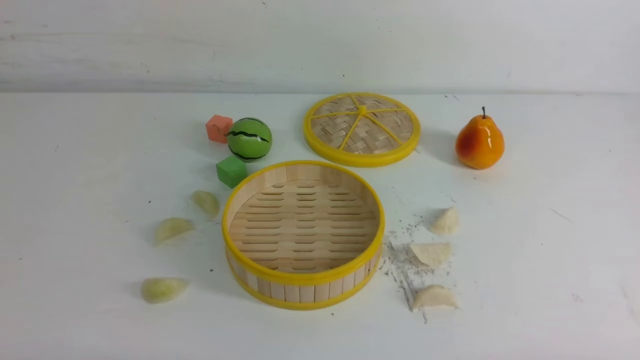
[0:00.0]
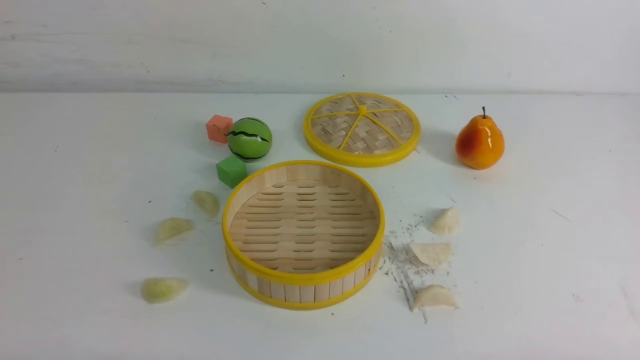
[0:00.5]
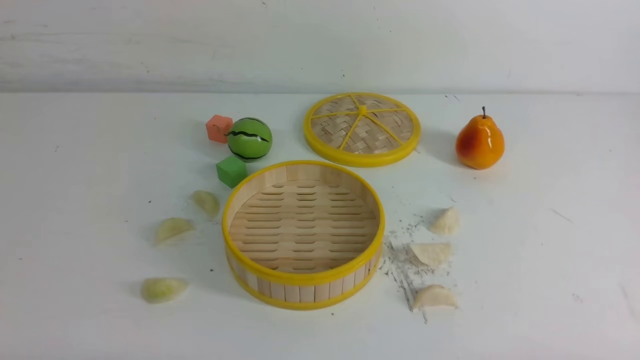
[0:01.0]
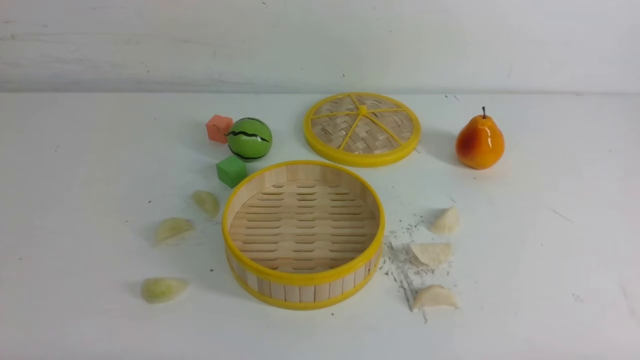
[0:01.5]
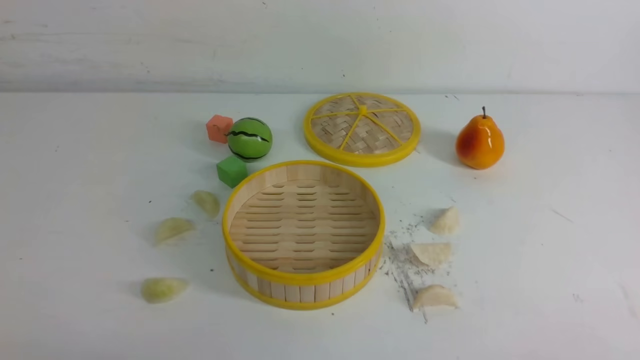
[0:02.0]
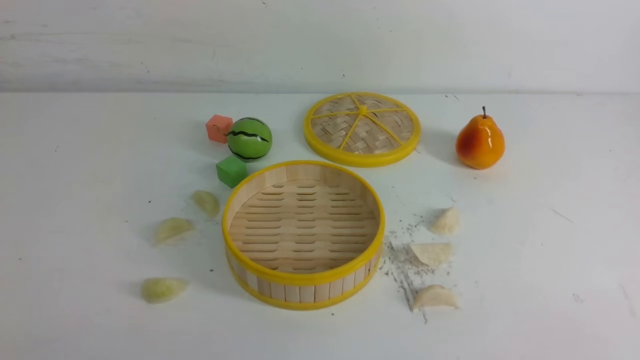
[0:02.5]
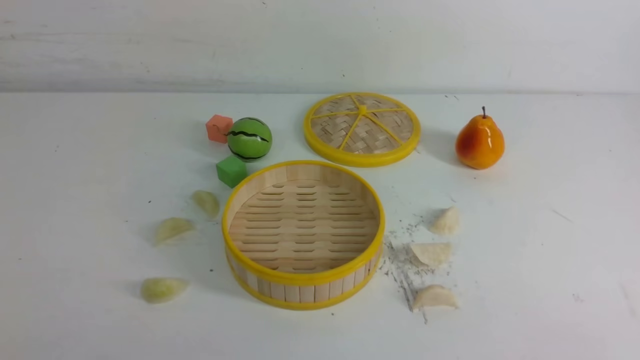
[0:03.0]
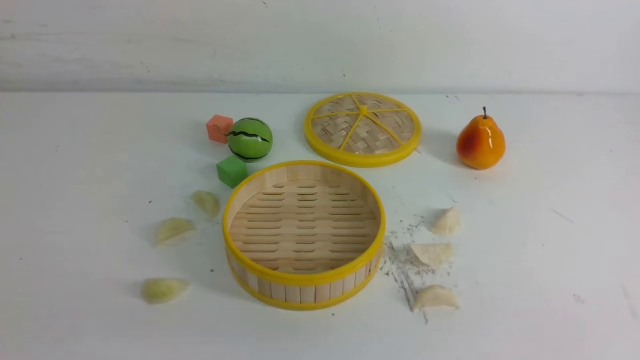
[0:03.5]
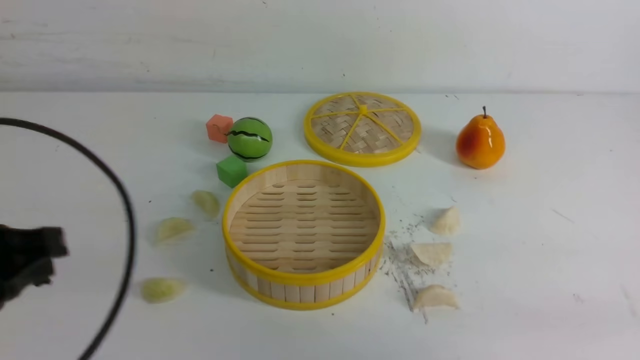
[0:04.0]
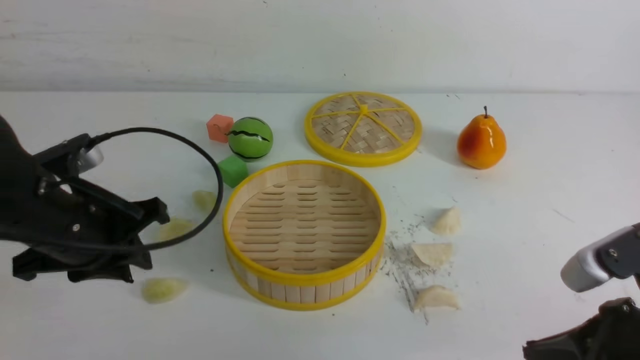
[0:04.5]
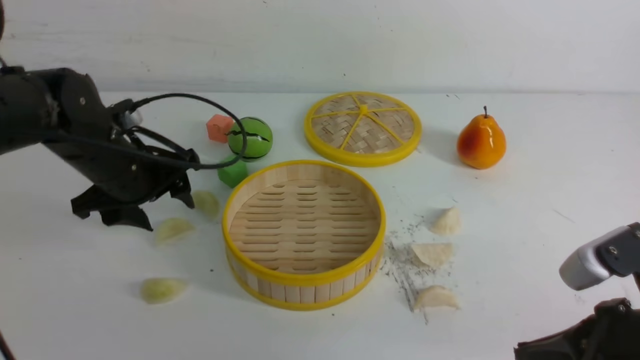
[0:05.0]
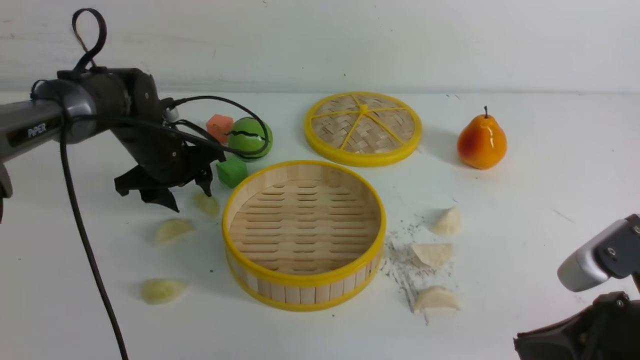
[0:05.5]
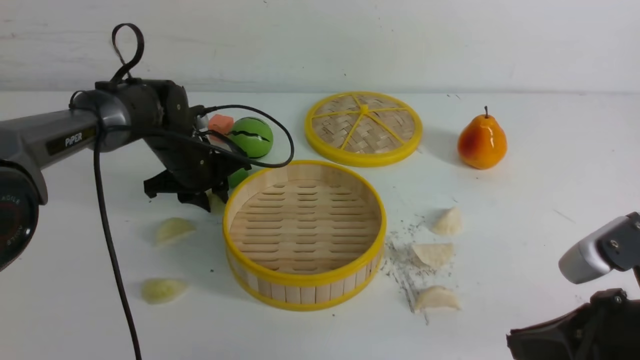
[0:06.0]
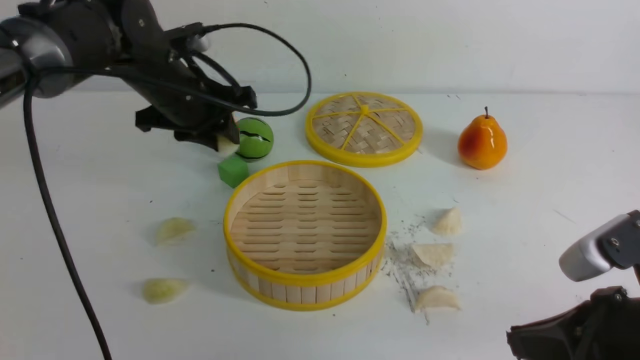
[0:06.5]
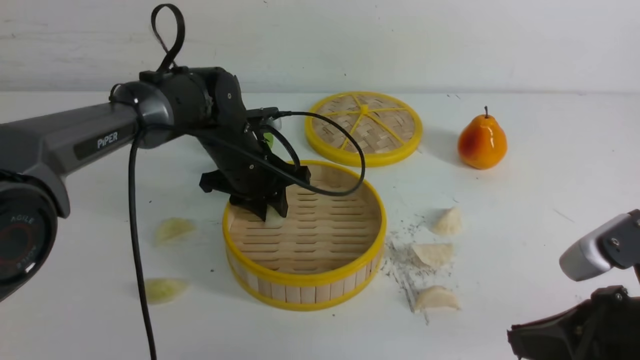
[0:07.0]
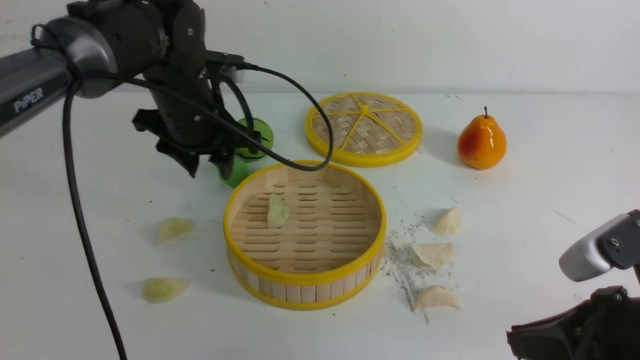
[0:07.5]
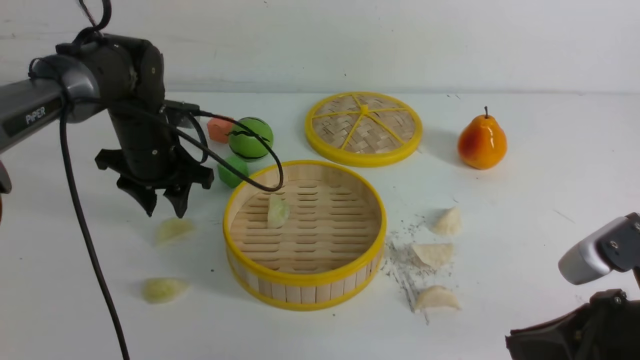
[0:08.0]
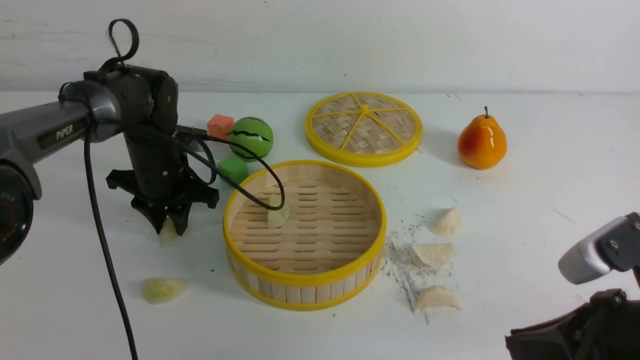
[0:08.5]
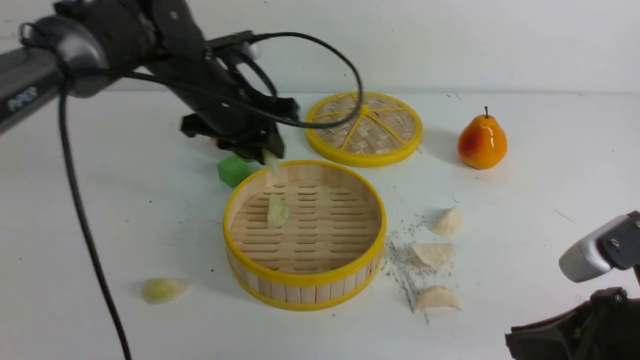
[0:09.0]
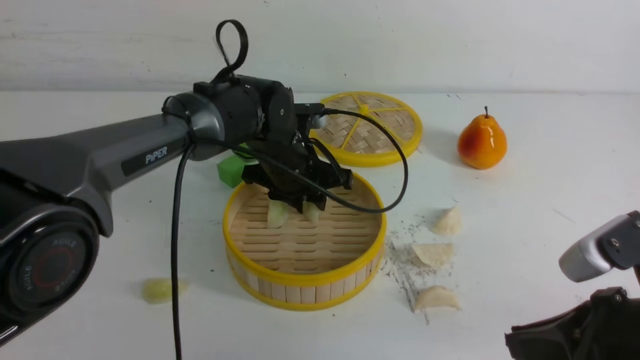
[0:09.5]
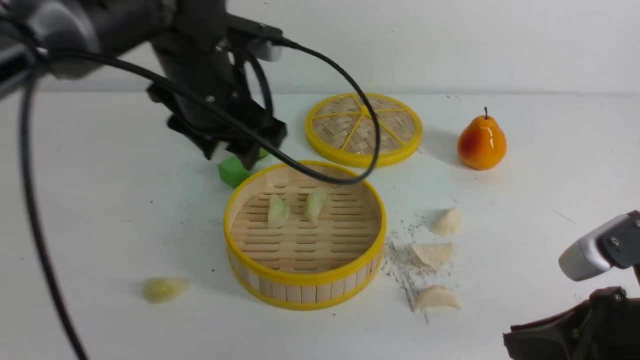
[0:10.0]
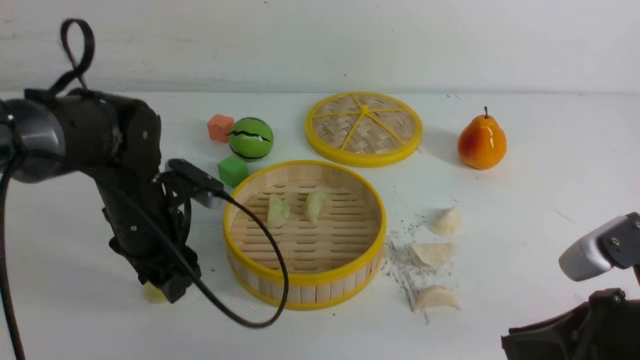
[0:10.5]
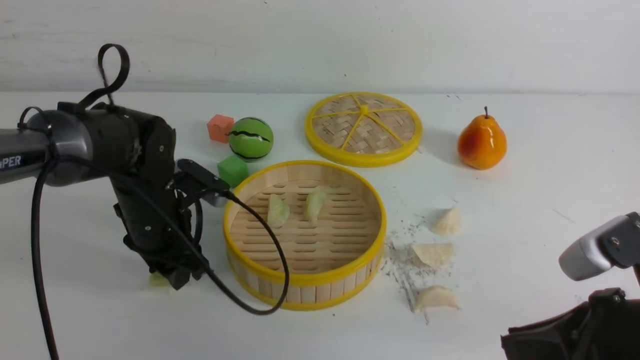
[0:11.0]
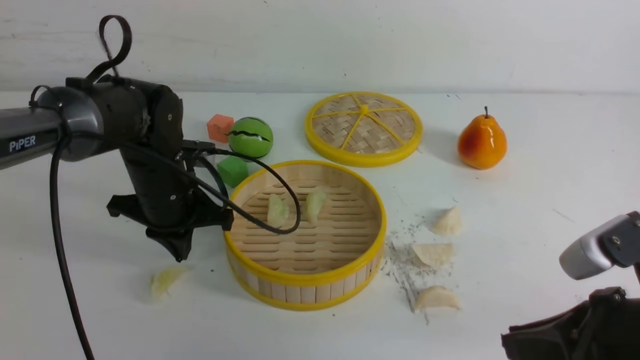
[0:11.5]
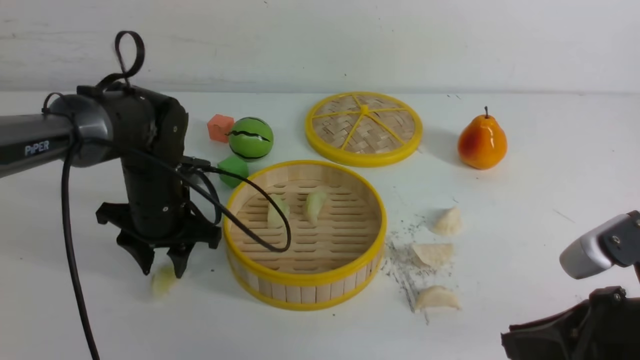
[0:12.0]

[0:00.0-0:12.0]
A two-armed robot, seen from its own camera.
Task of the whole recording: put the dumplings into the steamer on the white table.
Step, 0:00.0 to 0:06.0: use the left arm to grab a dumpling.
Step, 0:06.5 to 0:07.0: use the left arm to put the dumpling into the steamer.
Step, 0:07.5 to 0:08.5: use the left arm to grab a dumpling.
Step, 0:09.0 to 0:09.5: use the left arm to put the dumpling into the steamer.
0:02.0 to 0:04.0: The left gripper moves forward and upward, approximately 15 cm, and closes up.
0:04.0 to 0:06.0: The left gripper goes some 35 cm forward and downward, and opens its fingers, while the right gripper shifts roughly 5 cm to the left.
0:06.0 to 0:08.0: The left gripper reaches approximately 10 cm to the right, then returns.
0:08.0 to 0:10.0: The left gripper is displaced upward, to the right and backward by some 15 cm.
0:10.0 to 0:12.0: The left gripper travels downward and to the left by approximately 15 cm, and closes, then opens again.

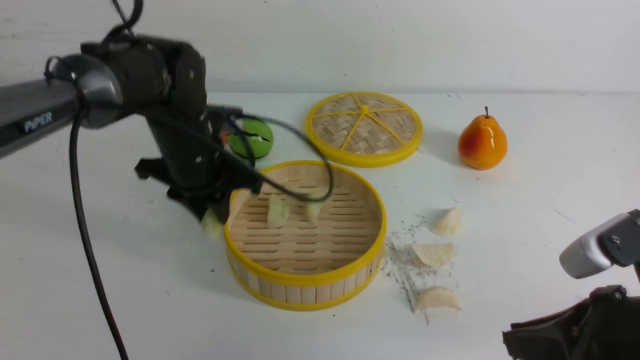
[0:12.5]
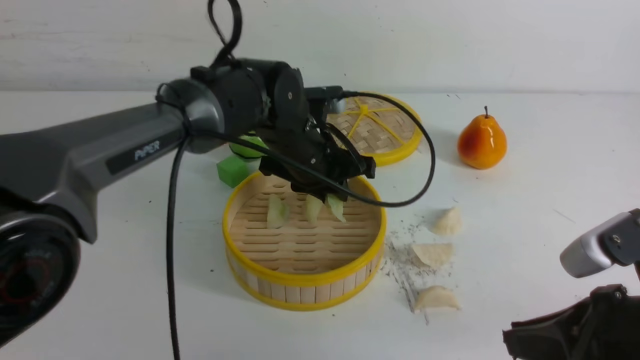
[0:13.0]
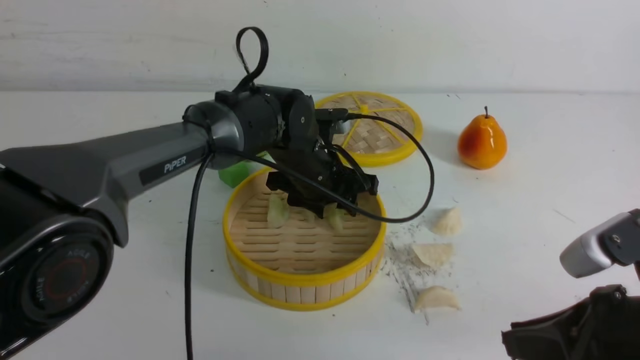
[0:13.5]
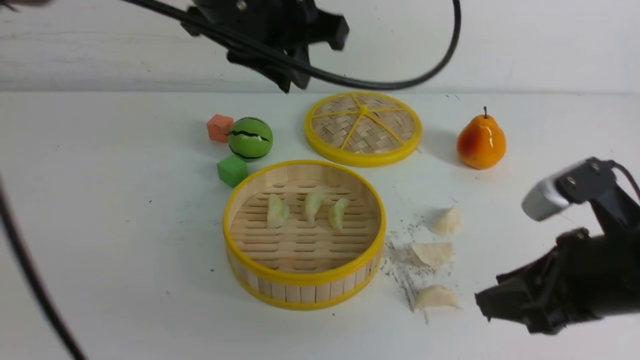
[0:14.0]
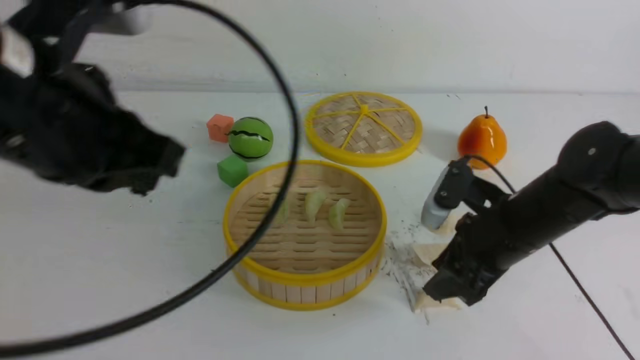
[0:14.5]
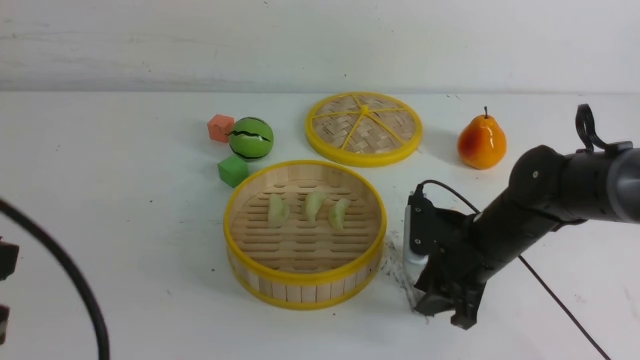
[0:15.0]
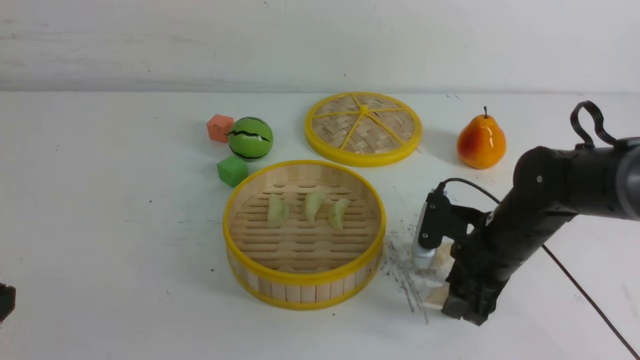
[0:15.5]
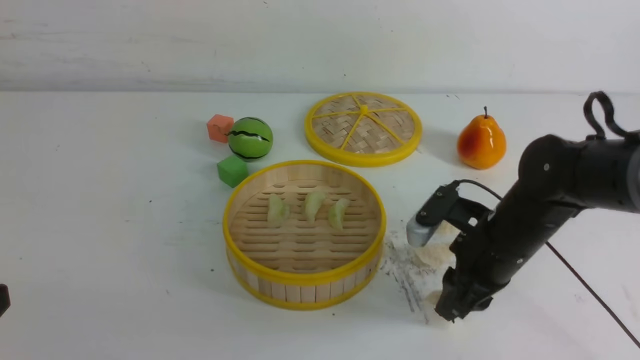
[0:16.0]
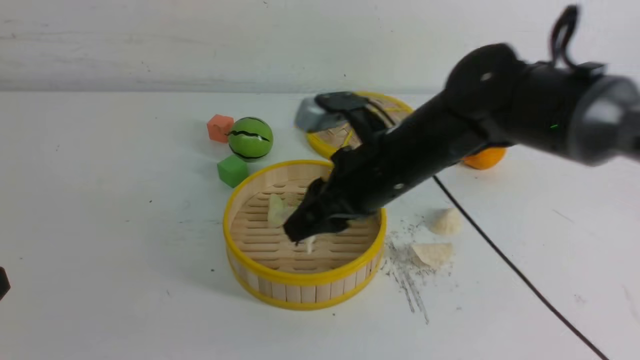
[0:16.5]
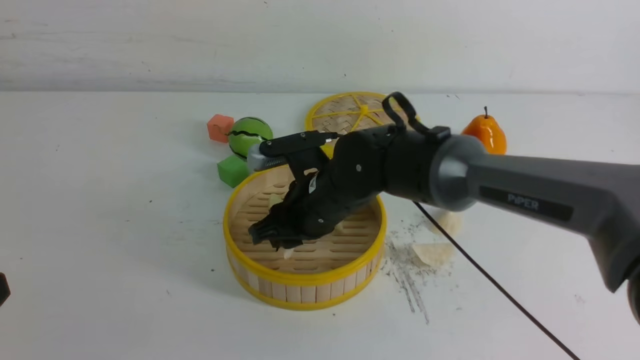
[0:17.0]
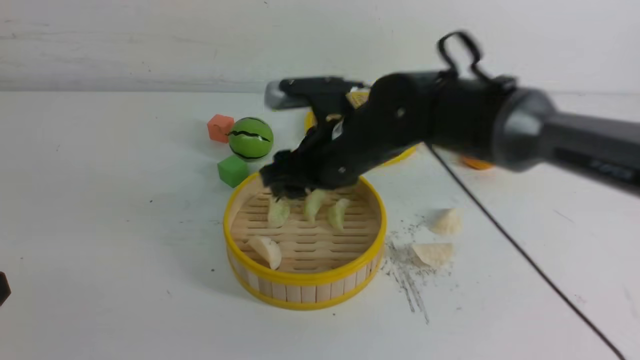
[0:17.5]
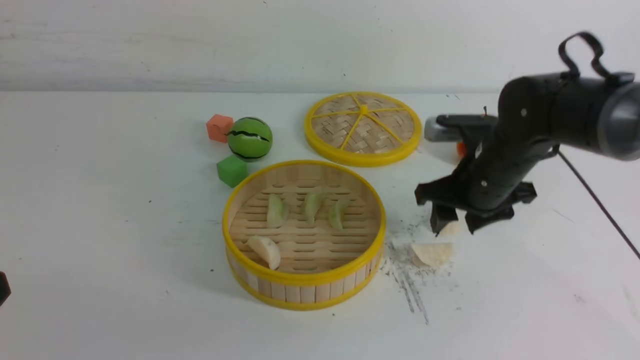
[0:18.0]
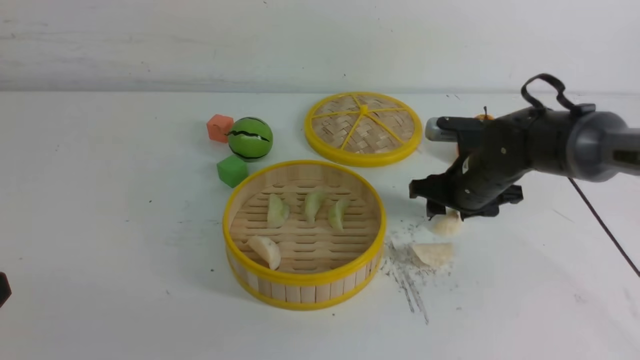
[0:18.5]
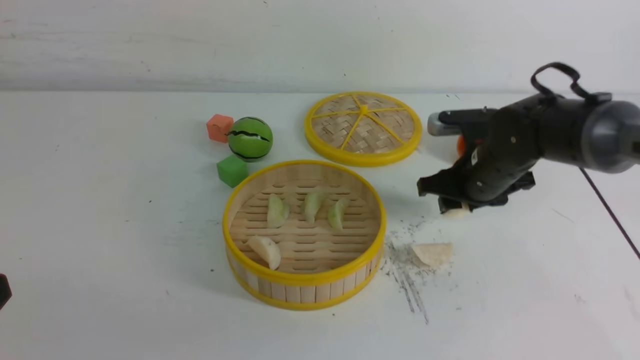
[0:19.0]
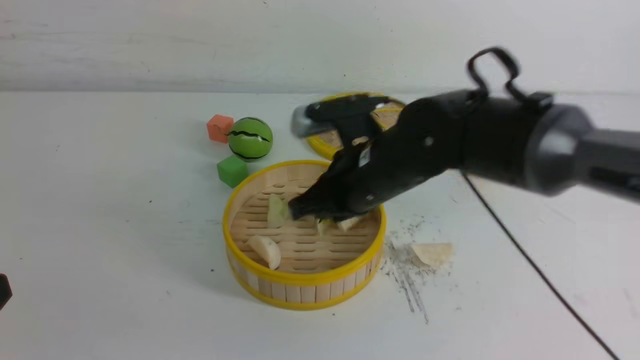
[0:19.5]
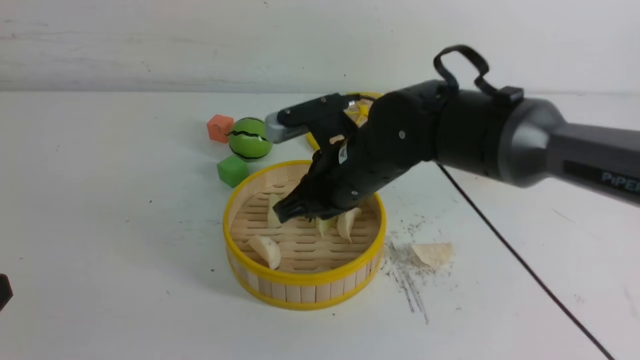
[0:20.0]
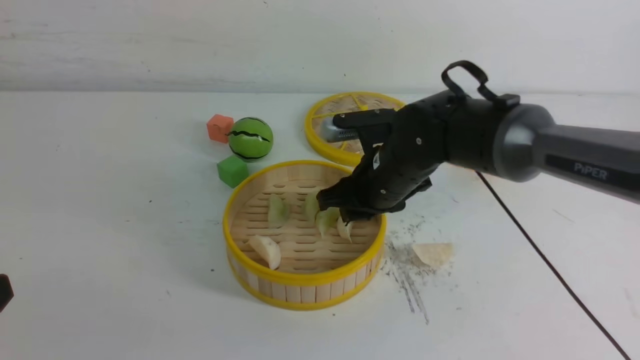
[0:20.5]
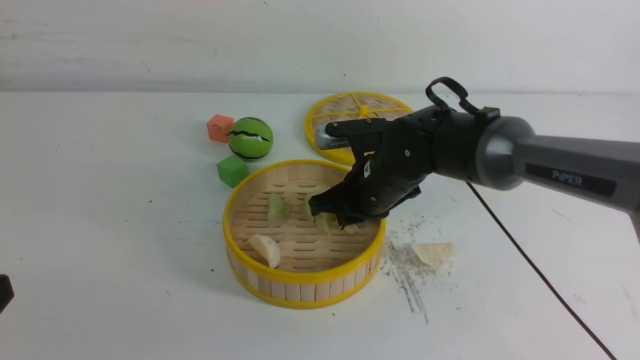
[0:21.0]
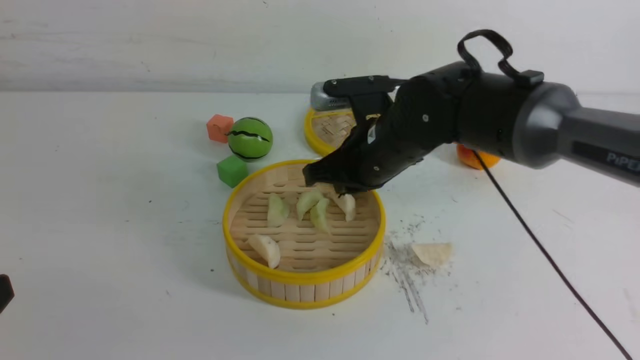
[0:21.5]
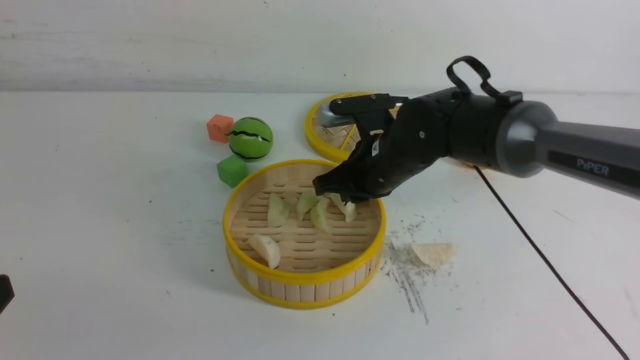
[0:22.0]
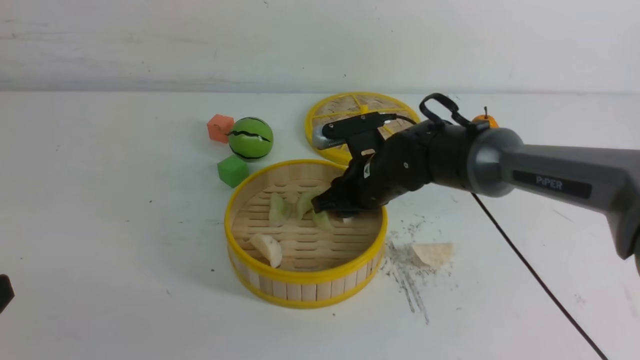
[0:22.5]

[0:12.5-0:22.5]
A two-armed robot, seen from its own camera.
Task of the whole recording: put the dumplings into the steamer on the white table.
Step, 0:12.5 to 0:13.0: use the left arm to put the dumpling into the steamer.
Step, 0:14.0 to 0:15.5: use the right arm to grab a dumpling.
Step, 0:16.5 to 0:17.0: use the right arm to put the dumpling into the steamer.
Step, 0:17.5 to 0:18.5: use the right arm to grab a dumpling.
Step, 0:19.0 to 0:19.5: use the right arm to put the dumpling into the steamer.
0:12.5 to 0:14.5: The left gripper is displaced backward and upward by approximately 25 cm, and closes; the right gripper moves forward, about 15 cm, and opens up.
0:14.5 to 0:16.5: The right gripper travels to the left and upward by approximately 15 cm; the left gripper travels backward, downward and to the left by roughly 20 cm.
0:16.5 to 0:18.5: The right gripper heads to the right, downward and forward, covering roughly 15 cm, and opens up.
0:18.5 to 0:20.5: The right gripper moves to the left, some 10 cm, and closes, then reopens.
0:20.5 to 0:22.5: The right gripper closes and opens again.
